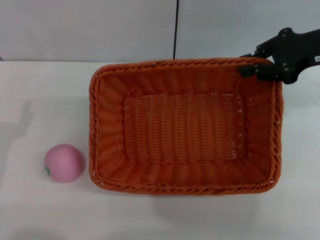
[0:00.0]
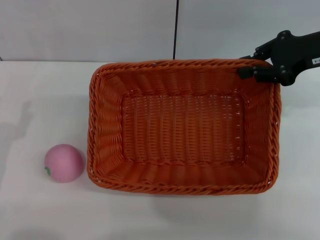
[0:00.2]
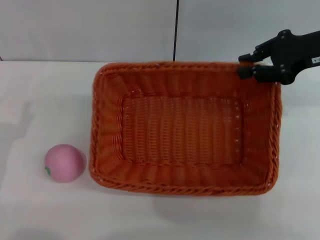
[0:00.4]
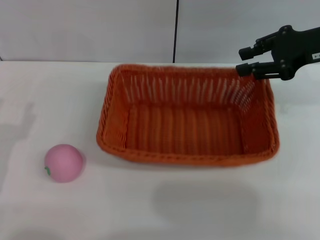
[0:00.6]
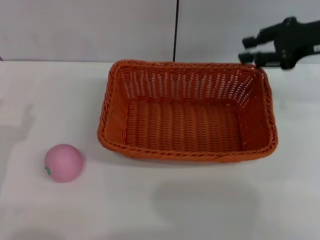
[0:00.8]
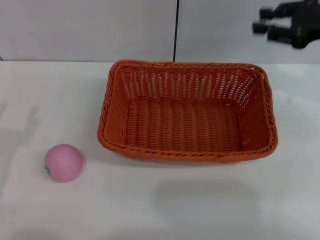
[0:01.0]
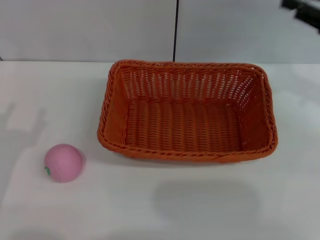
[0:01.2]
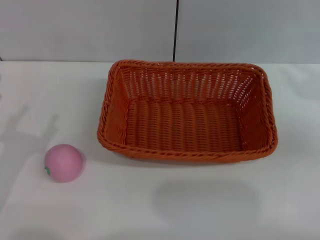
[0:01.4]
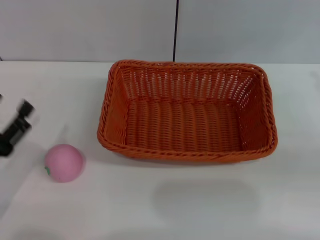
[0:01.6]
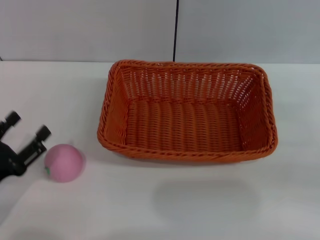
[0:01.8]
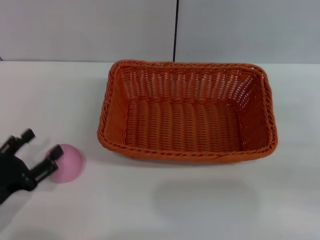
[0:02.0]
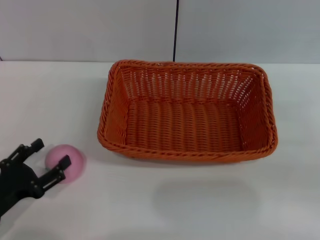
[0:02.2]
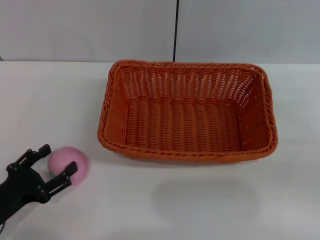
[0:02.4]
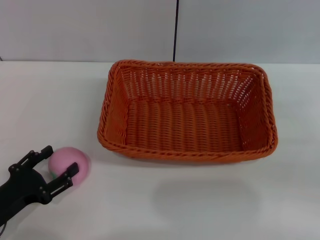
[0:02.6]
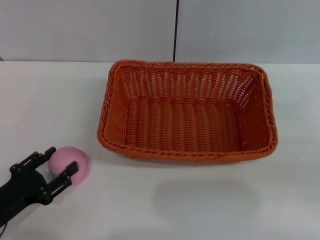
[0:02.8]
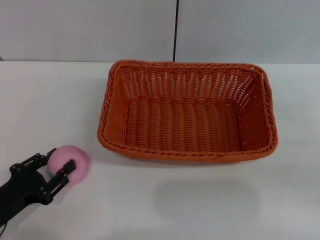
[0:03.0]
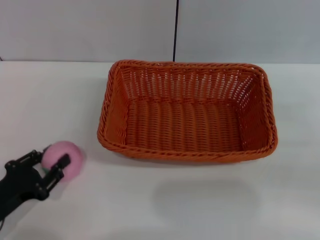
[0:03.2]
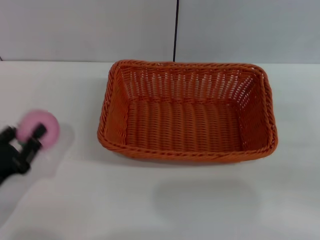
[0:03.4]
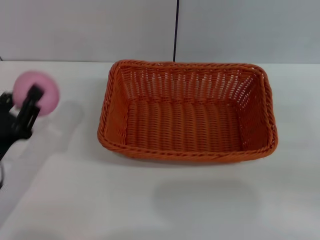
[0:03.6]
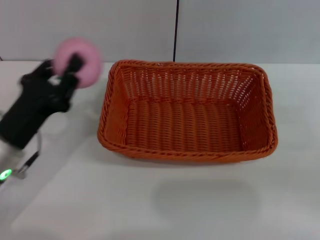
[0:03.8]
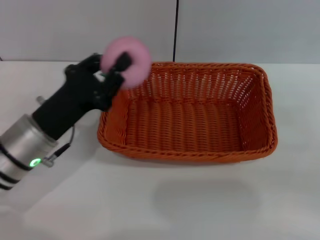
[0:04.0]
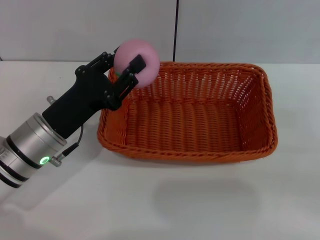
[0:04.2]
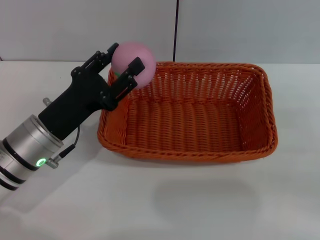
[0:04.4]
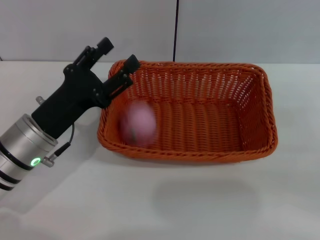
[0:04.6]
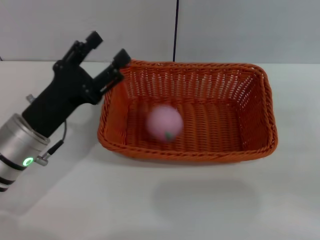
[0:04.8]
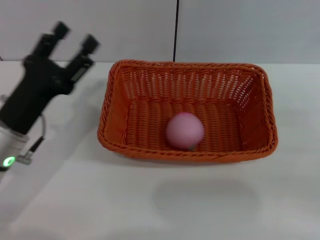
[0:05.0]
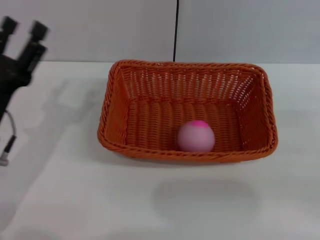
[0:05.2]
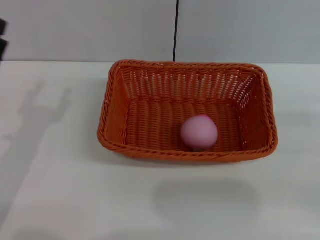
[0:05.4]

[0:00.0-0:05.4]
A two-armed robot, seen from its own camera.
Step, 0:00.0 to 0:01.0: Place the light basket in the center of view with the right gripper.
Step, 0:01.2 to 0:03.6: Pick up the peach with the left gripper.
Step, 0:03.8 to 0:04.8: Place the peach into the basket with the left gripper.
0:00.0 to 0:01.4: The right gripper moves backward, to the right and downward, roughly 15 cm, and opens its fingers.
0:01.4 to 0:02.8: The left gripper is displaced downward by approximately 5 cm.
0:02.8 to 0:04.0: The left gripper shifts some 15 cm forward, to the right and upward, and closes.
0:04.0 to 0:05.4: The left gripper moves to the left, roughly 5 cm, and opens.

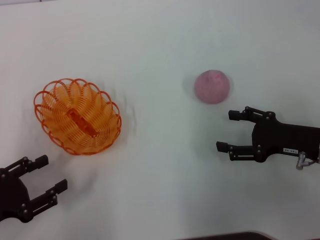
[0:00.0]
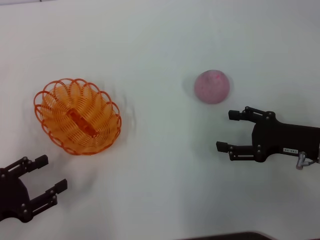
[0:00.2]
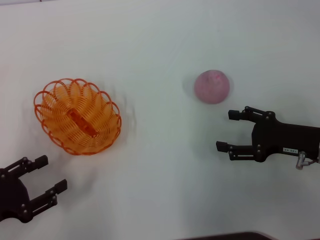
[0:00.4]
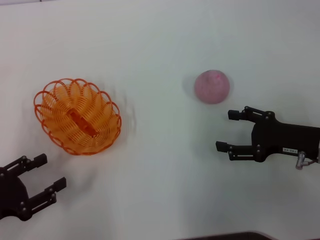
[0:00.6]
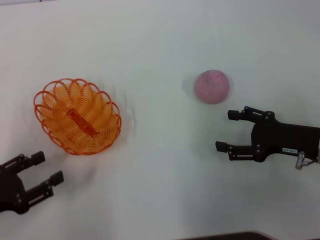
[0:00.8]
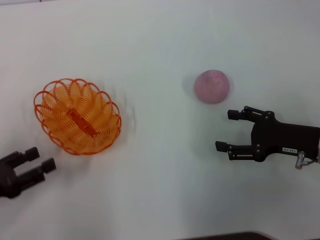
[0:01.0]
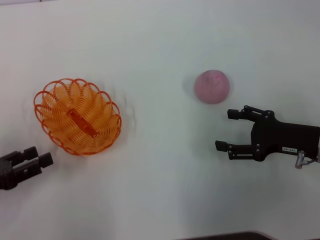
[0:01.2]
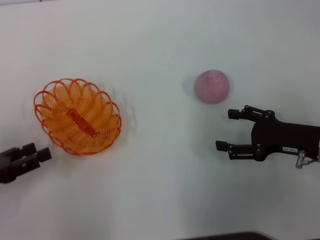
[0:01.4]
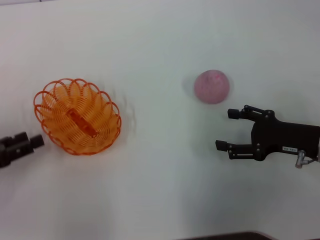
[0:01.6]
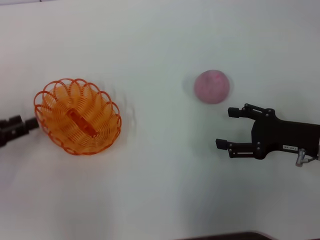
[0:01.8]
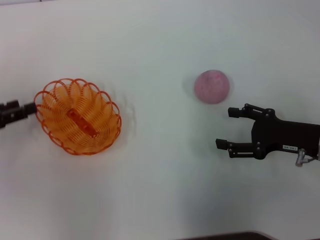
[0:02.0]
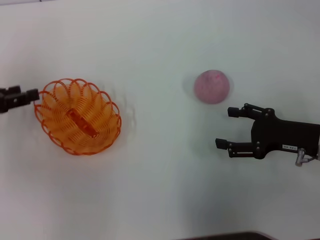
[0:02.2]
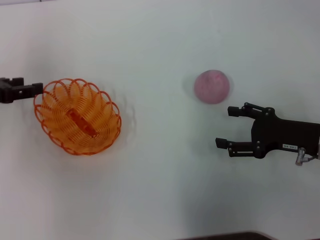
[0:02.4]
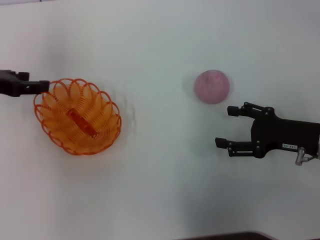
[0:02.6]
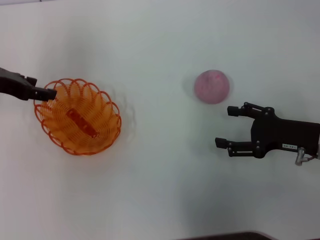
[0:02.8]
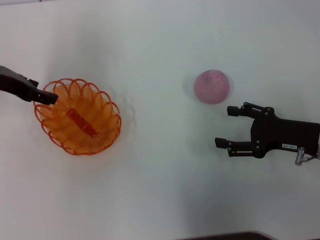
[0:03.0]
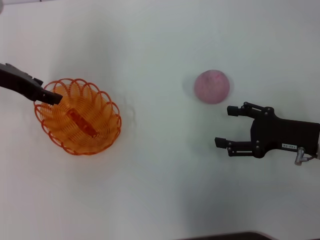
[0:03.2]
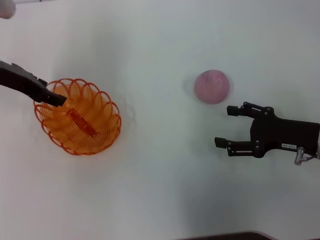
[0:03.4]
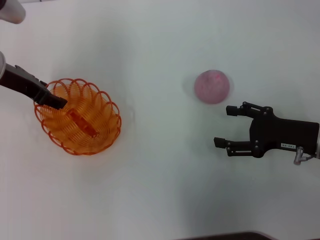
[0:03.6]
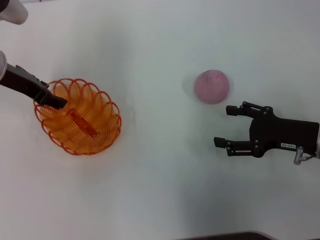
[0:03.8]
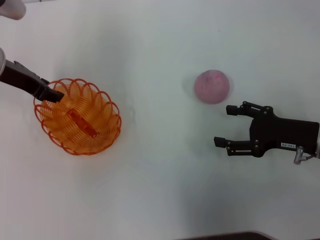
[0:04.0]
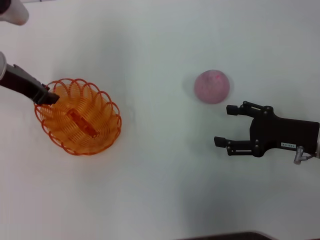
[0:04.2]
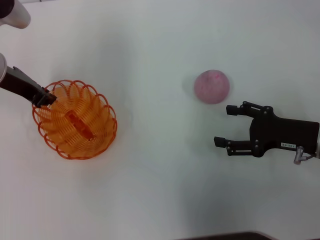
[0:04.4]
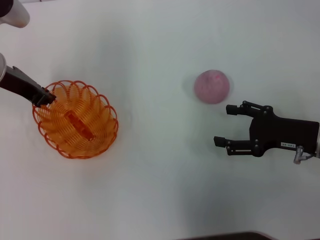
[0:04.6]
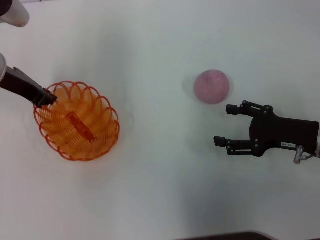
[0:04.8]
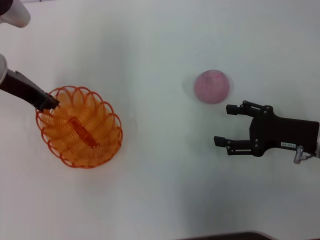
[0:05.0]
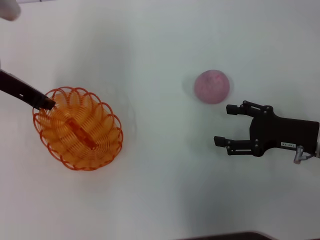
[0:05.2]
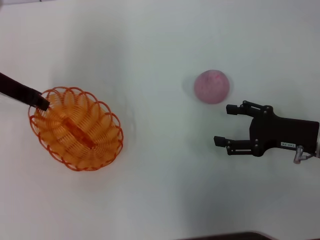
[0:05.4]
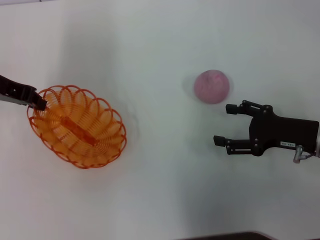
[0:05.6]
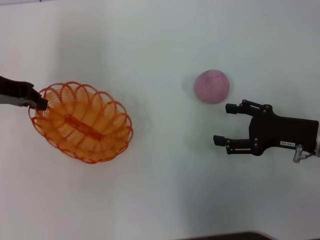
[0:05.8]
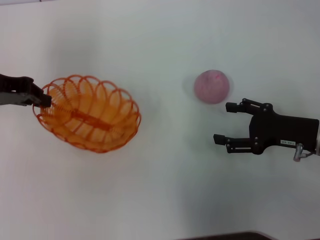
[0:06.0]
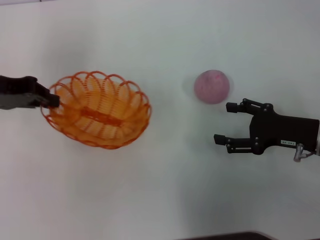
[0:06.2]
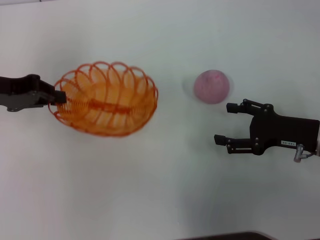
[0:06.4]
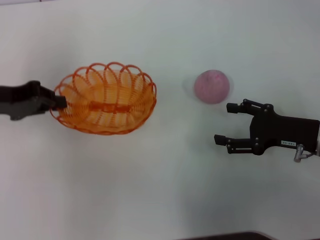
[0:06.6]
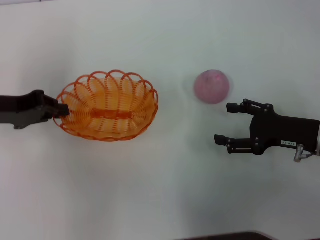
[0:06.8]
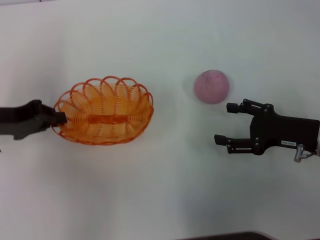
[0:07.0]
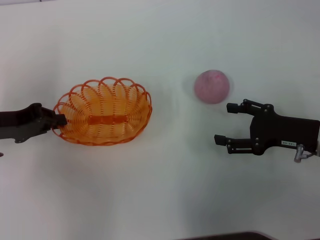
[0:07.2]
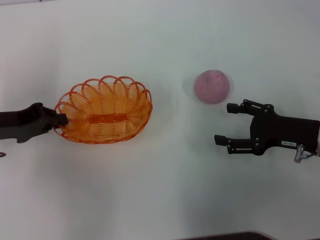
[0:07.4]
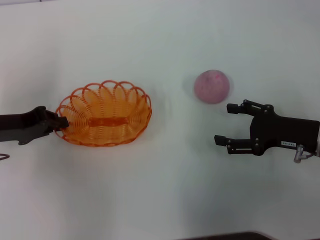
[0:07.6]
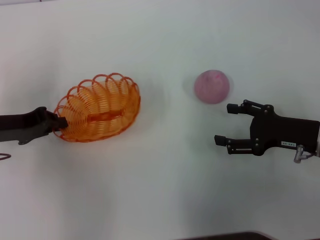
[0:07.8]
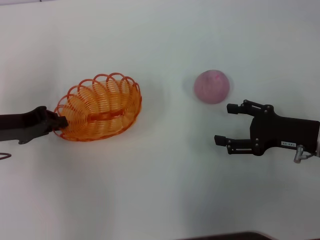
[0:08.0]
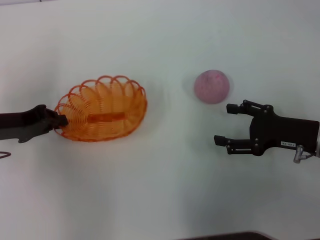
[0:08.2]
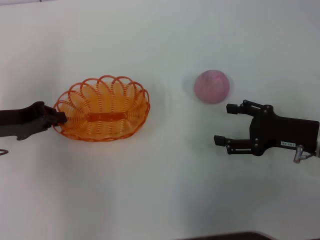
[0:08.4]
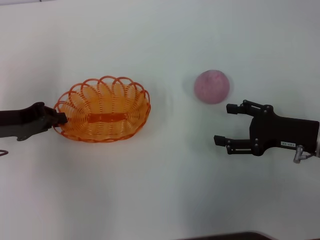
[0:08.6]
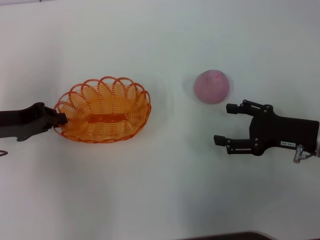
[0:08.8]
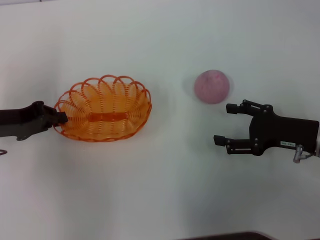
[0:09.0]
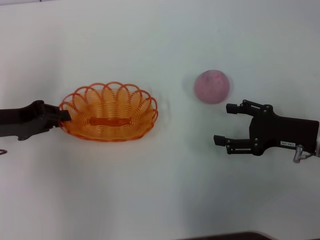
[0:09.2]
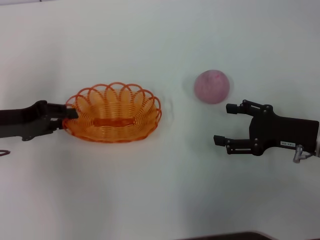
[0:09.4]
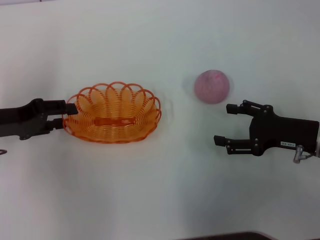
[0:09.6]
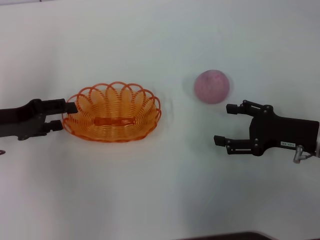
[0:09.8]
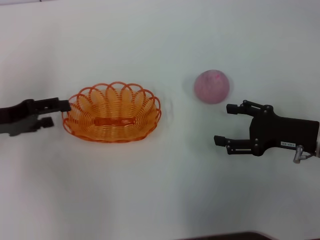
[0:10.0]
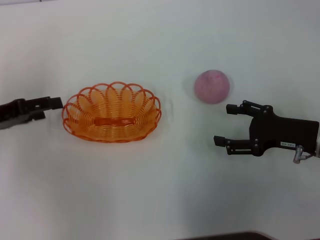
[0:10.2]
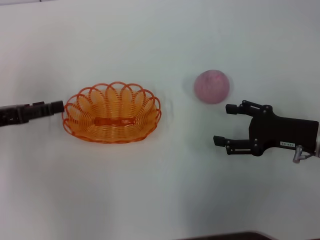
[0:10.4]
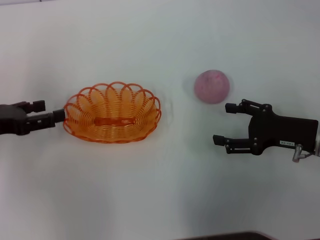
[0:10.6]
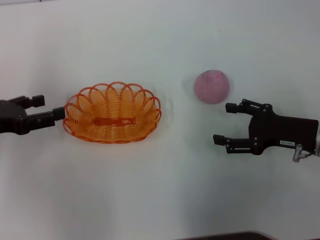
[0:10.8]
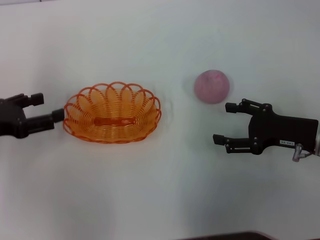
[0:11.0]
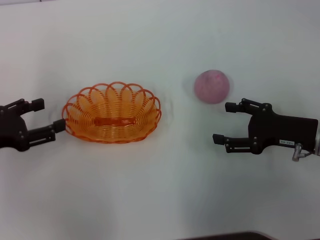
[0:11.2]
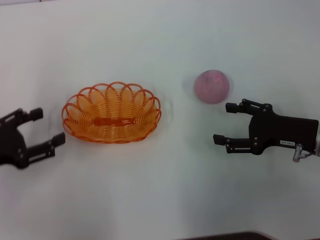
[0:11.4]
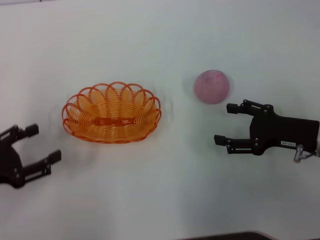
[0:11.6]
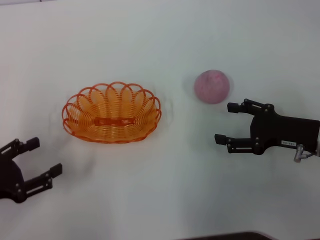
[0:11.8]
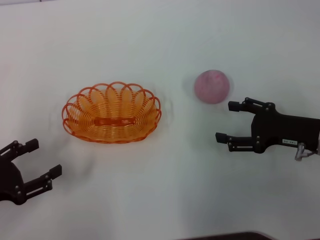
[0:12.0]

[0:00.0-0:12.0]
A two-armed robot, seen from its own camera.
Step, 0:00.0 to 0:05.6: Pick up the basket with the left gripper.
Step, 0:05.8 to 0:10.0: Place the basket in the center of view with the left gripper.
0:00.0 to 0:01.6: The left gripper goes approximately 5 cm forward.
0:01.6 to 0:03.0: The left gripper goes about 20 cm forward, upward and to the right.
0:03.0 to 0:04.4: The left gripper closes.
0:04.4 to 0:06.0: The left gripper shifts by about 5 cm.
0:06.0 to 0:07.6: The left gripper moves downward and backward, roughly 10 cm.
0:07.6 to 0:09.0: Neither gripper changes place.
0:09.0 to 0:10.4: The left gripper opens up.
0:10.4 to 0:12.0: The left gripper shifts about 10 cm backward.

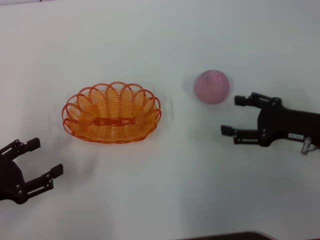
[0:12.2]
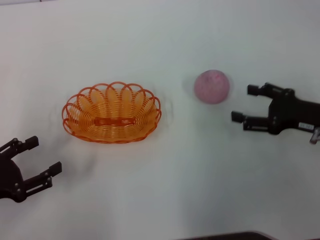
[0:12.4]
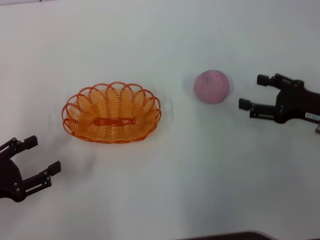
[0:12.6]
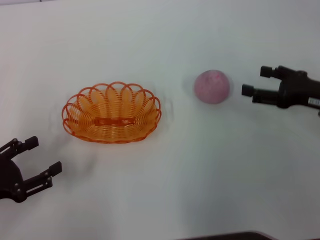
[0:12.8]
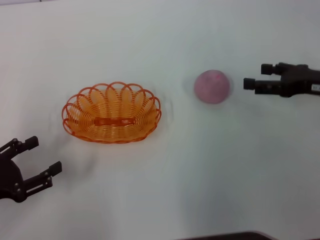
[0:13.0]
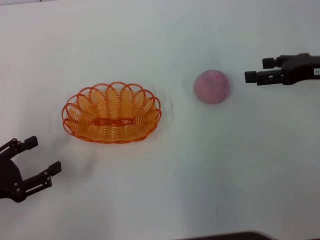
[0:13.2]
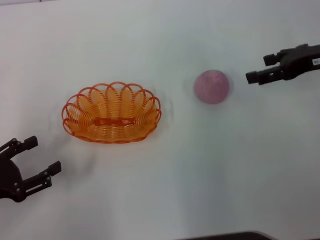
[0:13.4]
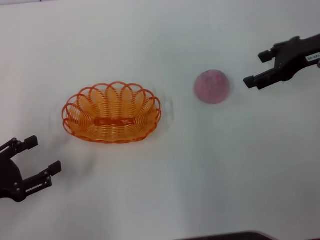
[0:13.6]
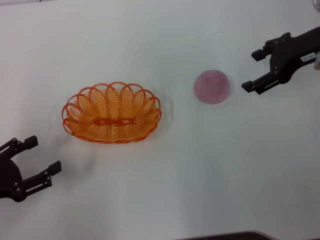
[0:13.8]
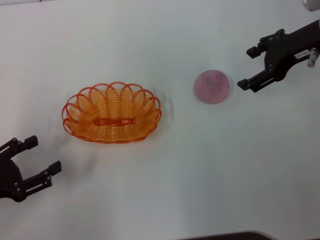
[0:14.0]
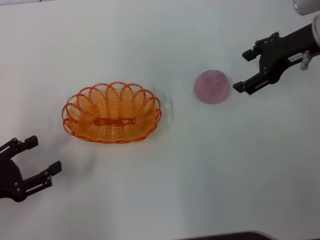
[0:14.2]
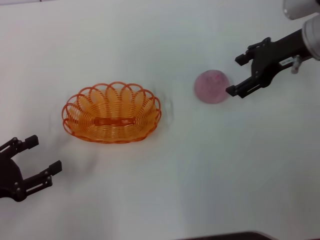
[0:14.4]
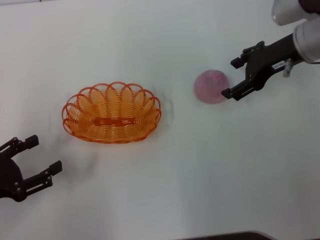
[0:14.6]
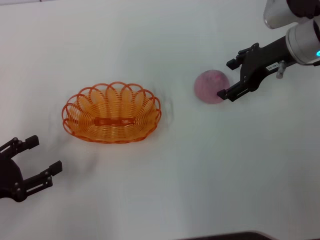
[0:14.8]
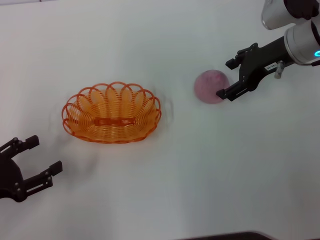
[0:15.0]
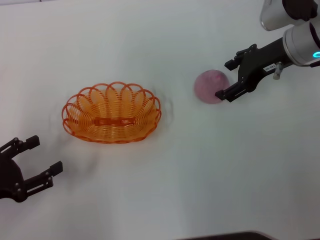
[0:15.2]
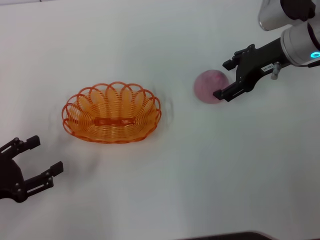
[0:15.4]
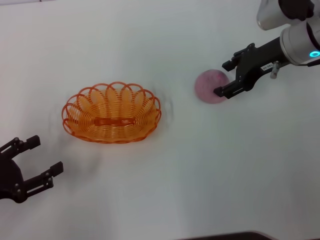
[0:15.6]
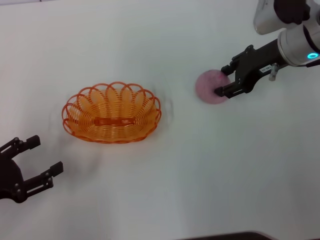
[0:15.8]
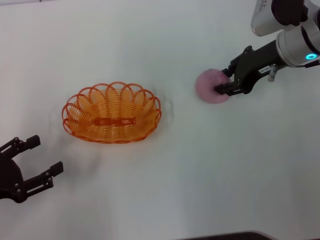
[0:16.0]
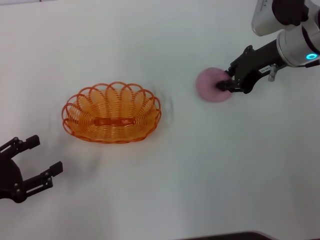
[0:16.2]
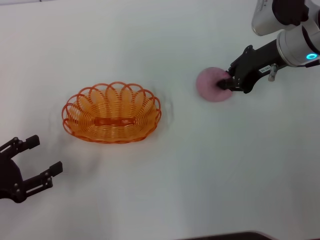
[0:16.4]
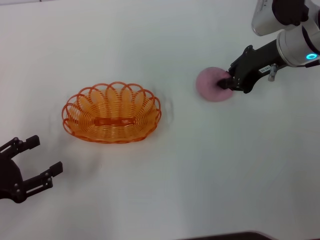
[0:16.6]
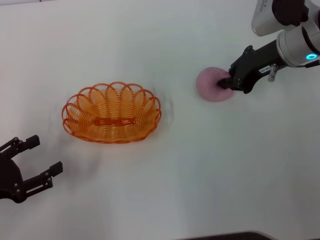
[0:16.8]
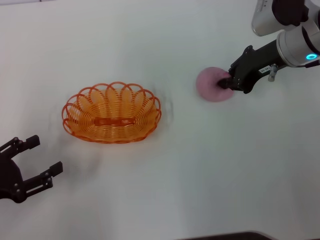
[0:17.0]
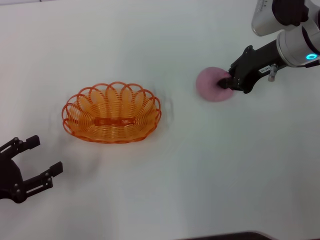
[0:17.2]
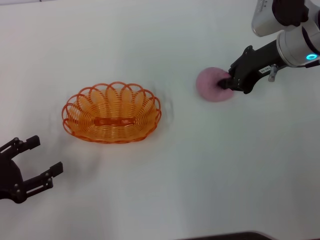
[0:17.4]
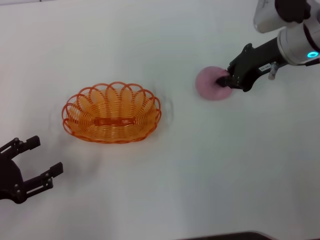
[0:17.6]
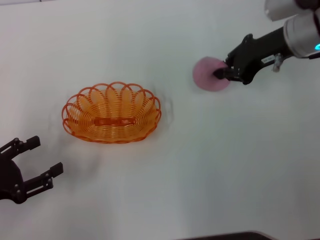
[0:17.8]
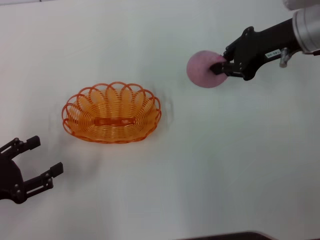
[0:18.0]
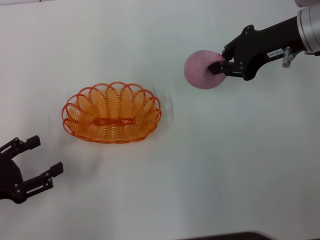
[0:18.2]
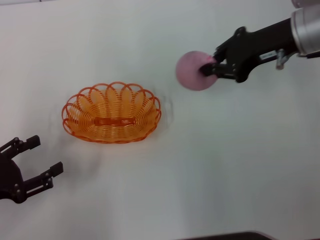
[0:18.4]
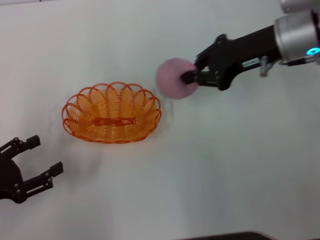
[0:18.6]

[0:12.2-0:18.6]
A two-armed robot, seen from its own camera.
Step, 0:12.2 to 0:18.2: Pick up the peach with the right gripper.
0:12.2 to 0:13.8: The right gripper goes some 15 cm upward and forward.
0:13.8 to 0:15.4: The right gripper changes place by roughly 5 cm.
0:15.4 to 0:17.0: The right gripper closes.
0:17.0 to 0:18.6: The right gripper shifts by about 5 cm.
